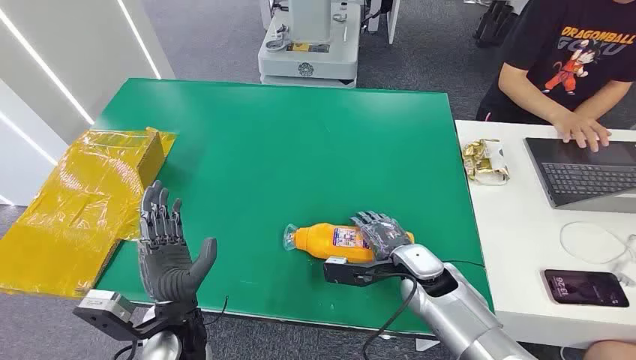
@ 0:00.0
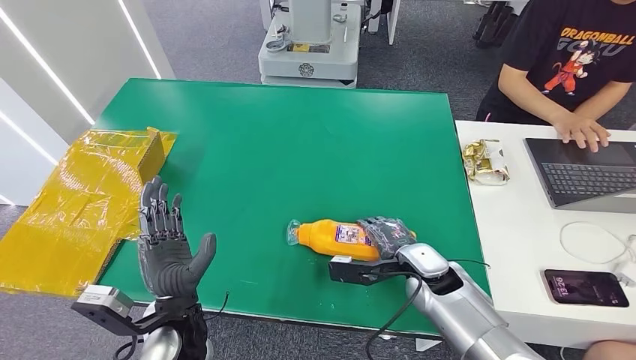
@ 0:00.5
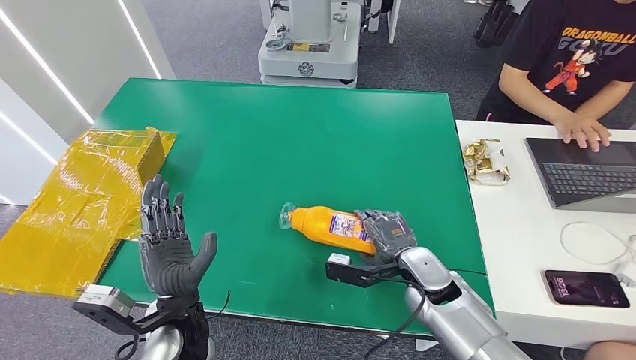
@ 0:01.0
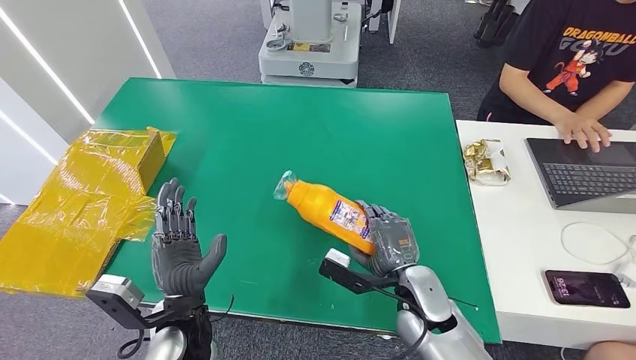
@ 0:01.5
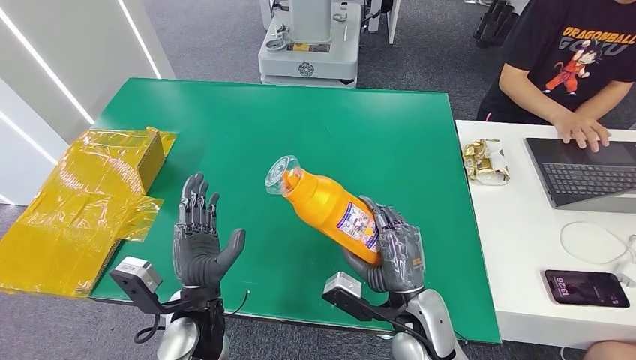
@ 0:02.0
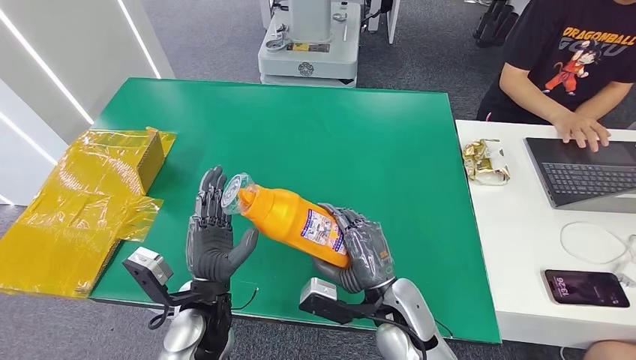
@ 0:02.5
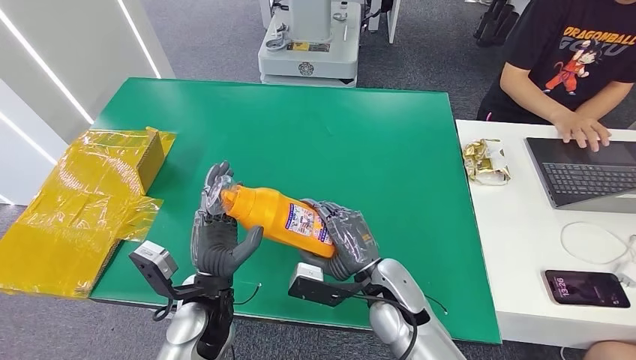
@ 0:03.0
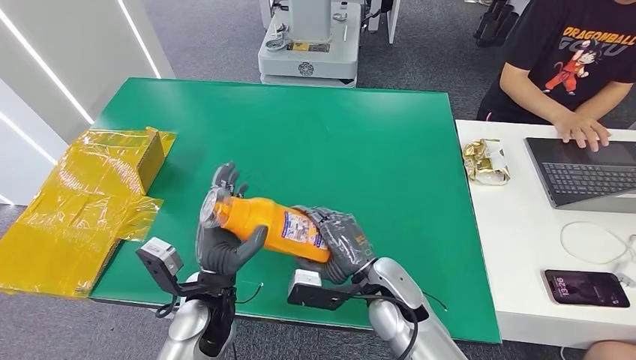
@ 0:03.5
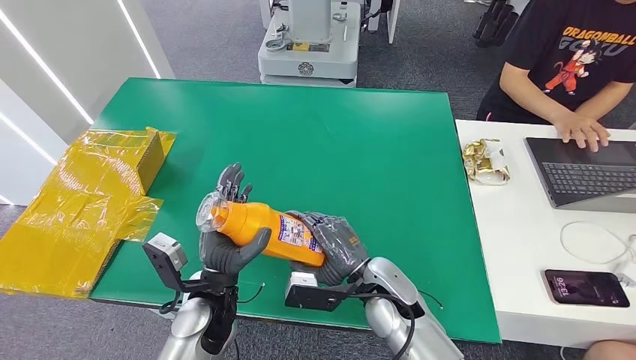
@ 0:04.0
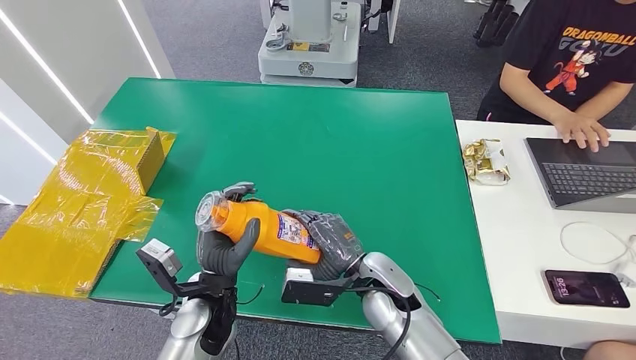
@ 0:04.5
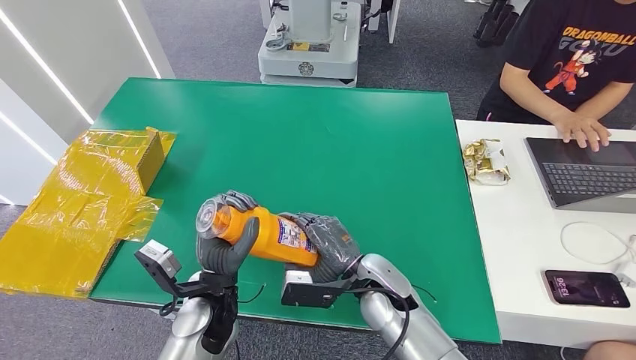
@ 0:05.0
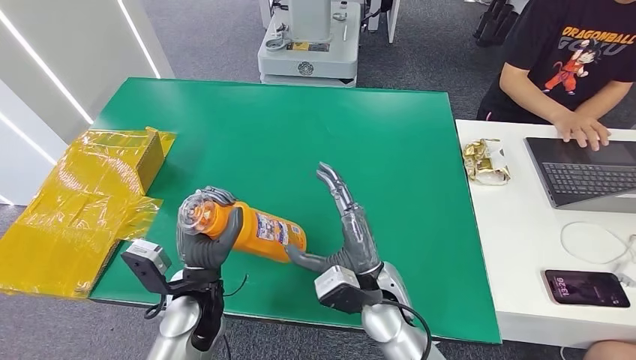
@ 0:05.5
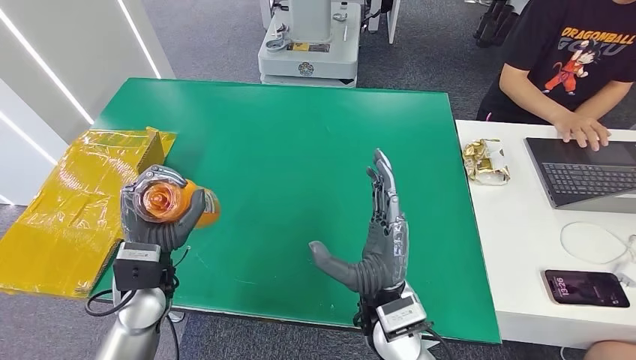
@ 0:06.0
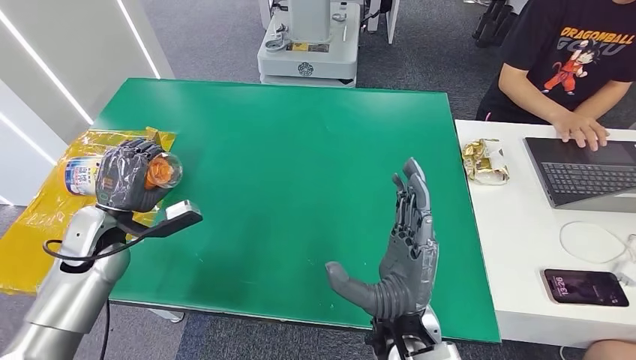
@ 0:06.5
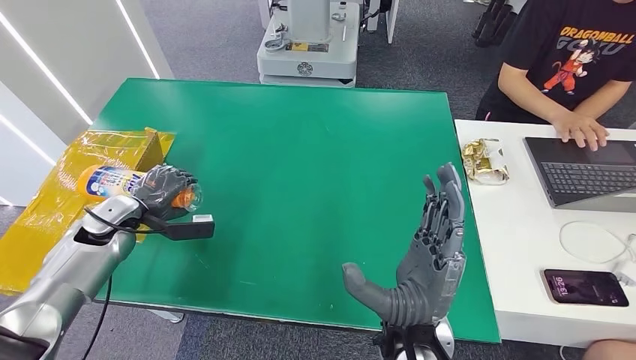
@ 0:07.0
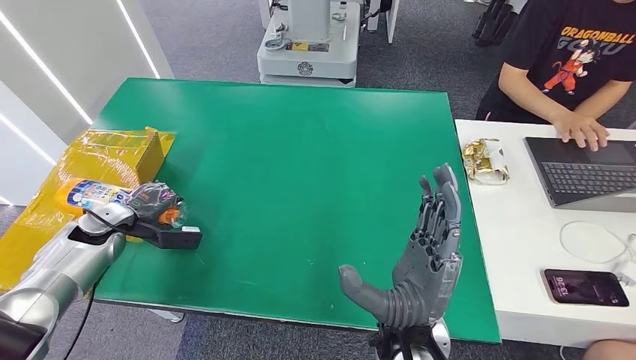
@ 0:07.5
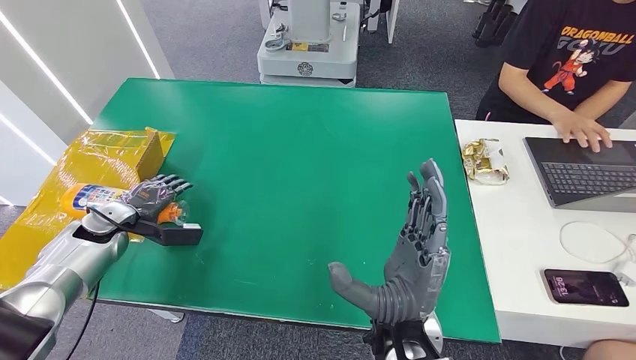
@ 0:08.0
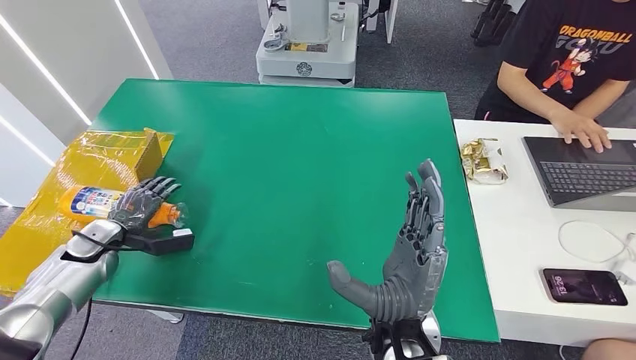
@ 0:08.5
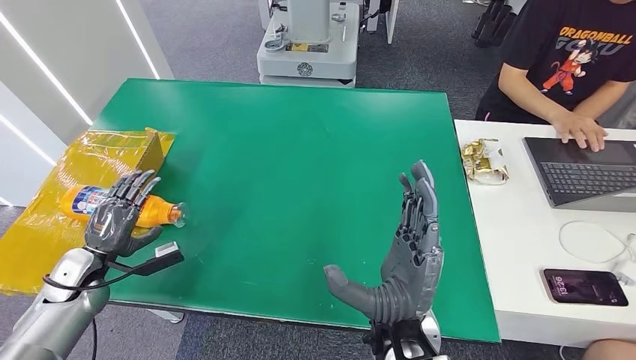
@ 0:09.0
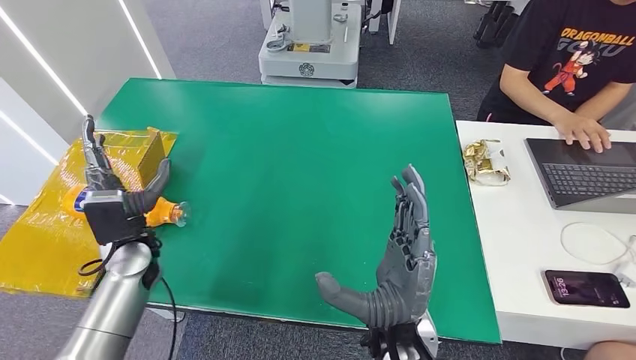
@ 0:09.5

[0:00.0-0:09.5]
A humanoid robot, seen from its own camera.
Step, 0:00.0 to 0:03.0: Pick up the bottle from the table.
Step, 0:03.5 to 0:09.5: Turn the bottle to the front side.
0:02.0 to 0:04.0: The right hand goes approximately 5 cm to the left.
0:05.5 to 0:07.5: The right hand moves upward and backward, some 10 cm. The left hand goes roughly 30 cm to the left and forward.
0:07.5 to 0:09.5: The left hand is displaced to the right by about 15 cm.

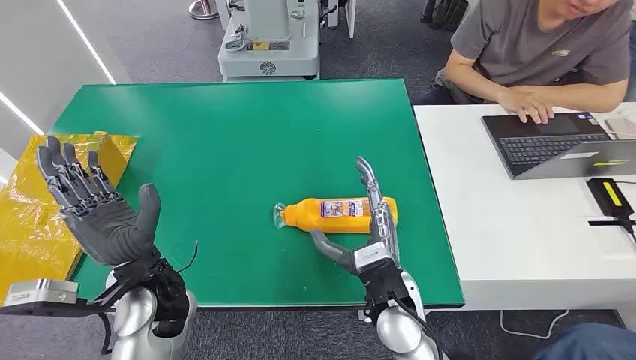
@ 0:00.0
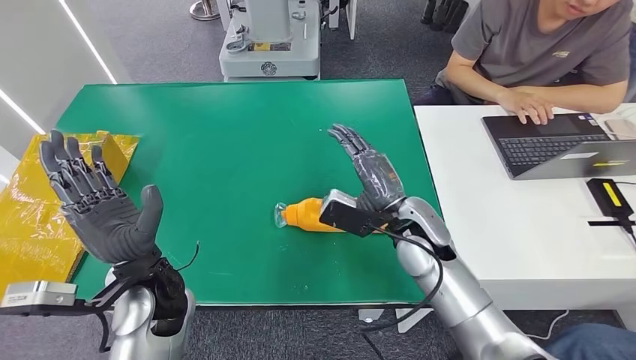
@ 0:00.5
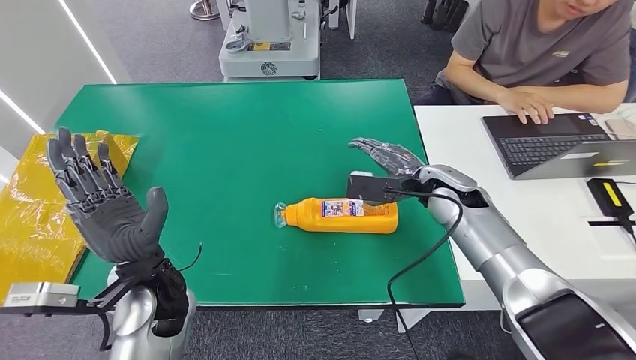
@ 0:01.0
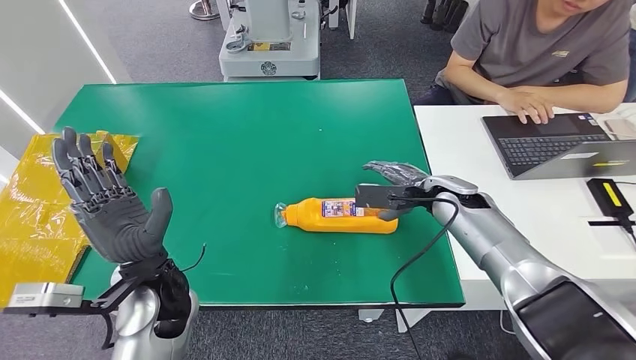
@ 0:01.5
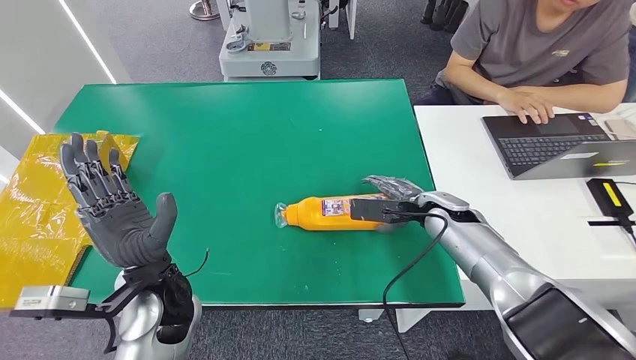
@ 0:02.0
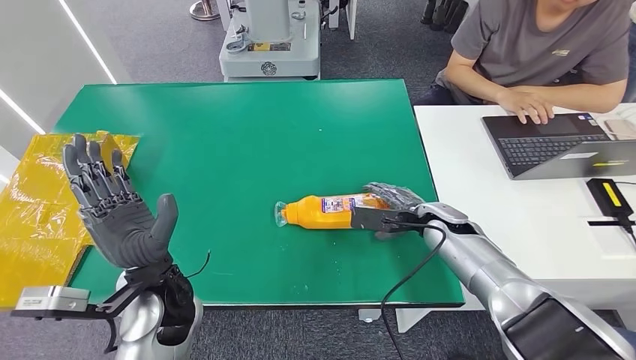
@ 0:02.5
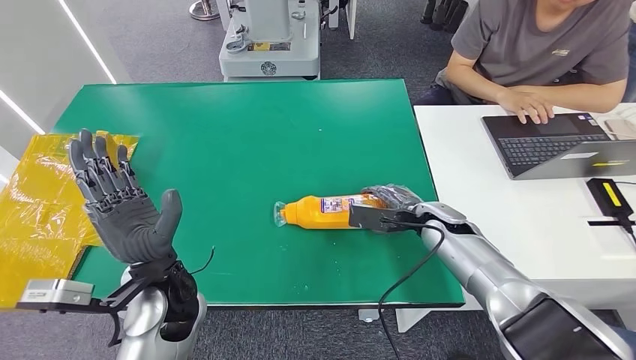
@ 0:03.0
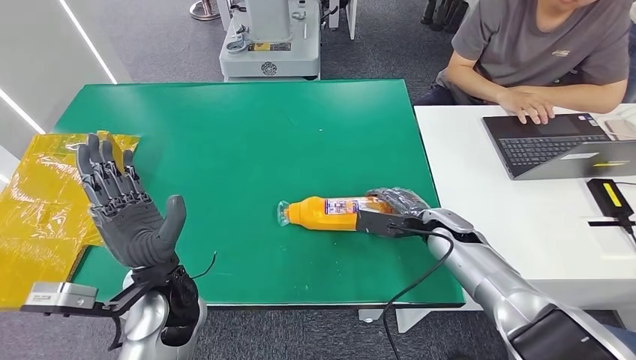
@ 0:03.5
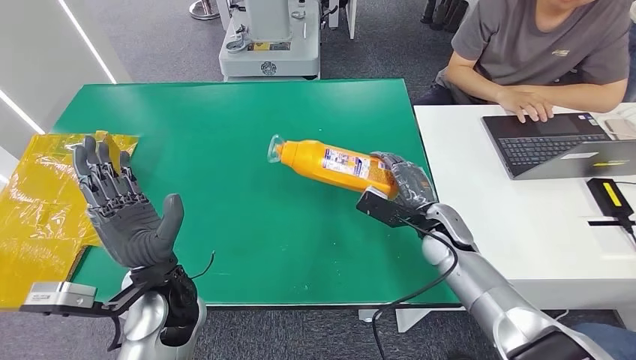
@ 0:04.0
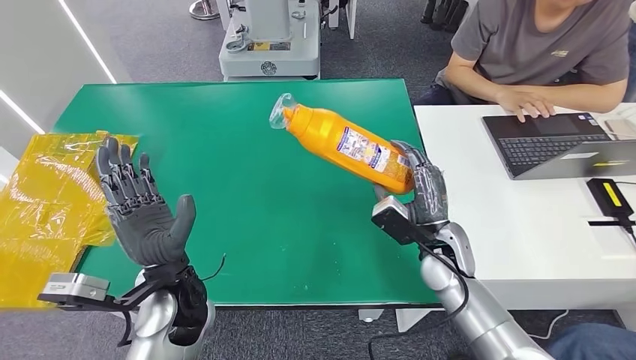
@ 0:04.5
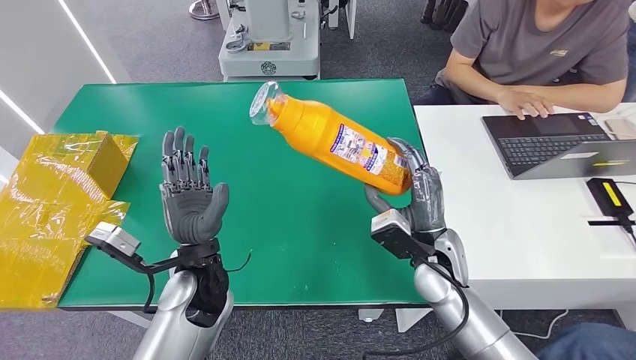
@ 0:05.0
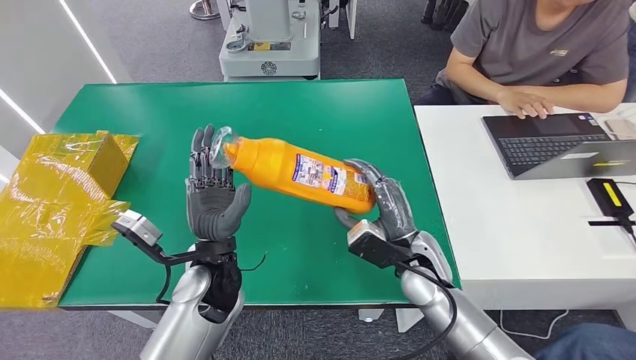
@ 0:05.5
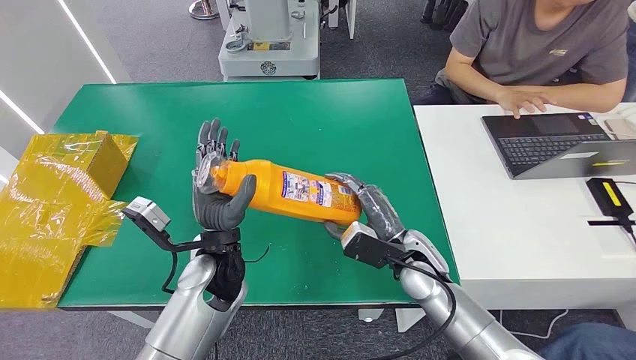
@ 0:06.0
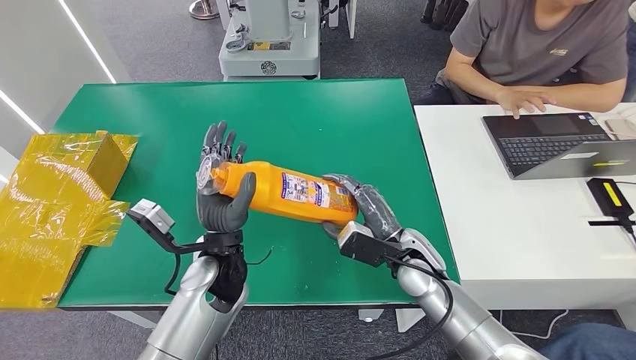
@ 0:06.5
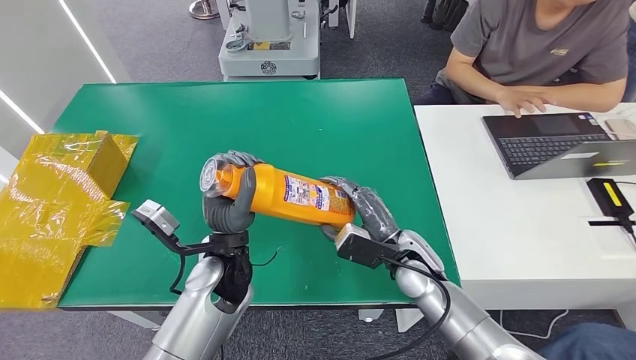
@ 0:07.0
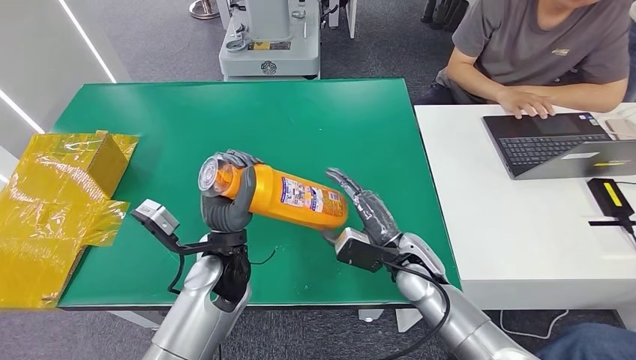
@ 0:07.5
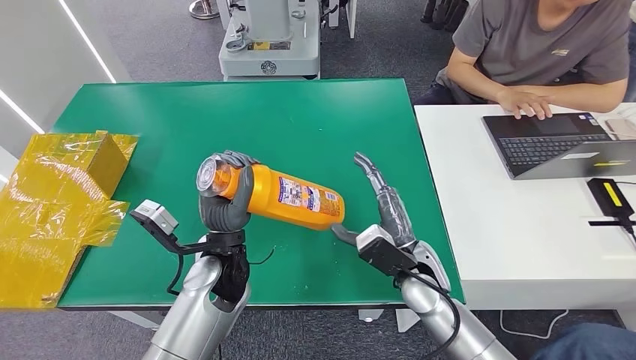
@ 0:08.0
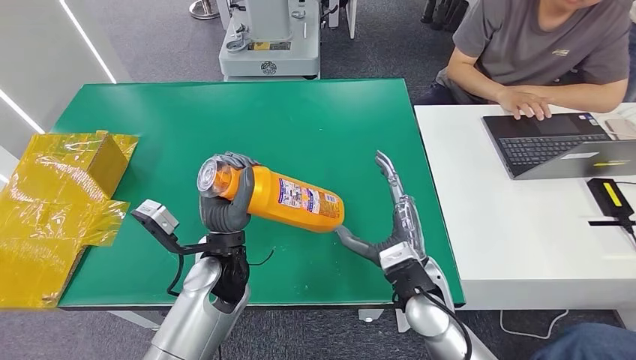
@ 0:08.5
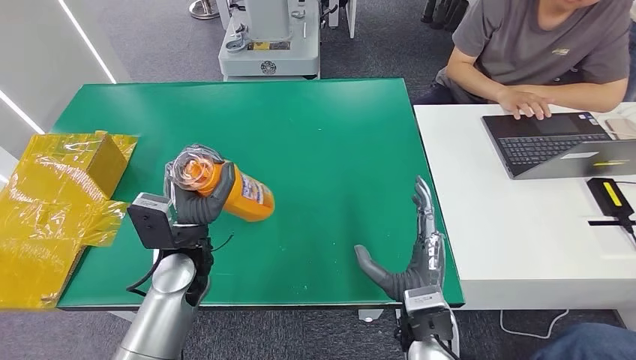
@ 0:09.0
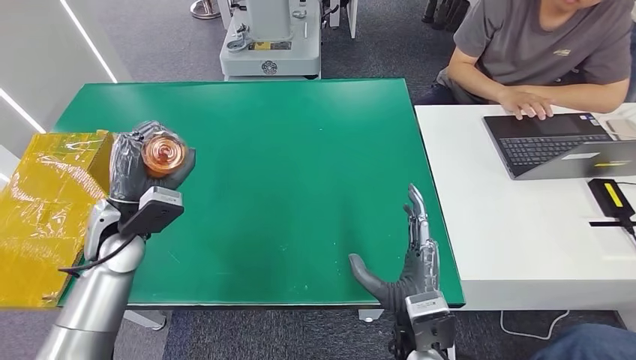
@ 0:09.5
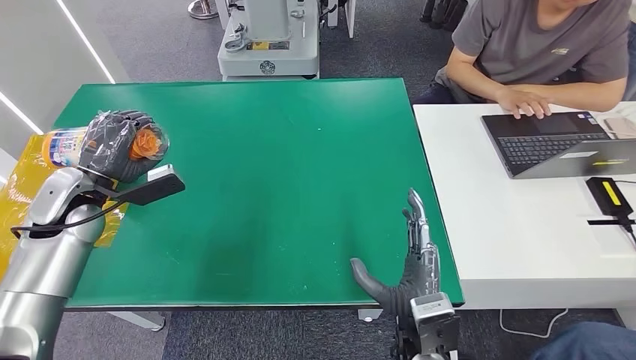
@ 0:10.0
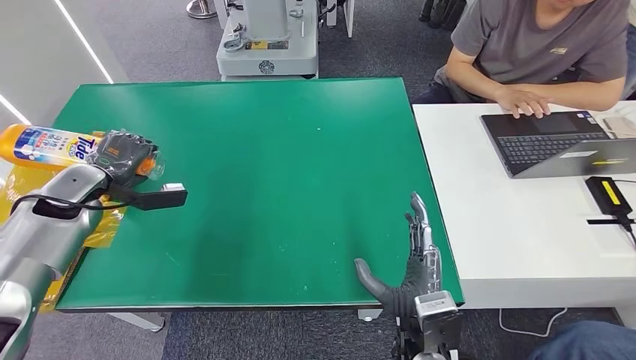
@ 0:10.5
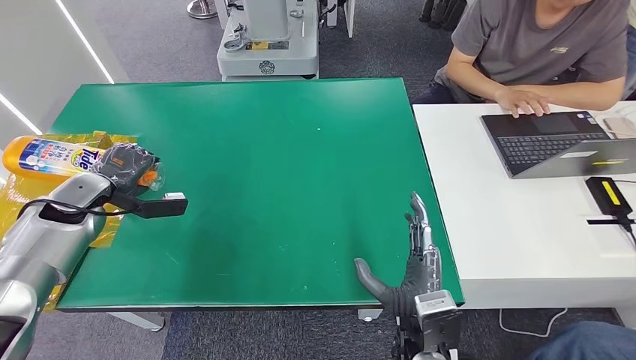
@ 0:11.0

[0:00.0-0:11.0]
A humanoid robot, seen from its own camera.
Step, 0:00.0 to 0:04.5: Pick up the bottle from the table.
0:02.0 to 0:03.5: The hands stay close to where they were, moving slightly.
0:05.5 to 0:07.5: The hands make only small movements.
0:07.5 to 0:09.0: The right hand shifts roughly 10 cm backward. Meanwhile the left hand is displaced to the left by approximately 5 cm.
0:09.0 to 0:11.0: The left hand goes some 30 cm to the left and forward.
